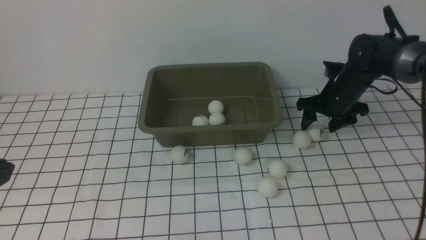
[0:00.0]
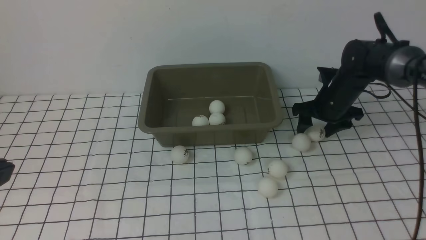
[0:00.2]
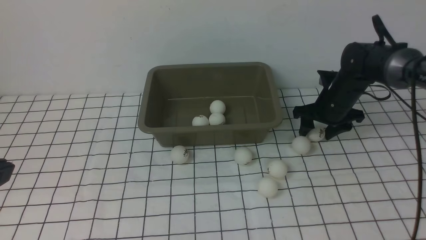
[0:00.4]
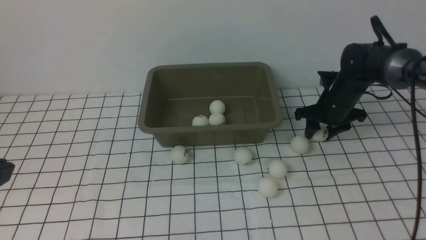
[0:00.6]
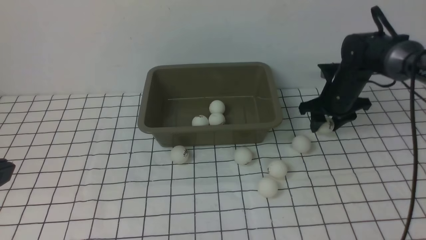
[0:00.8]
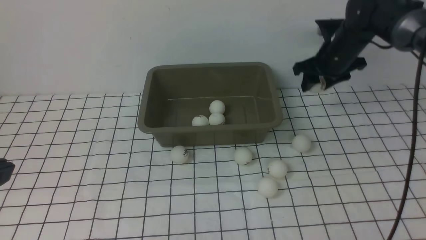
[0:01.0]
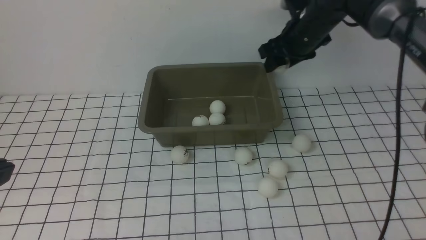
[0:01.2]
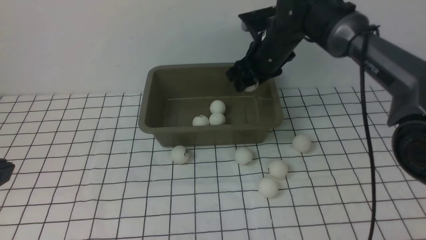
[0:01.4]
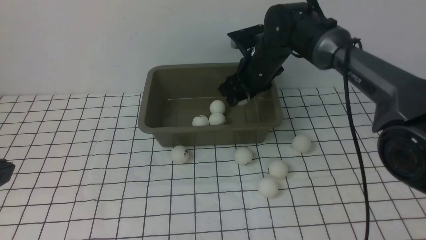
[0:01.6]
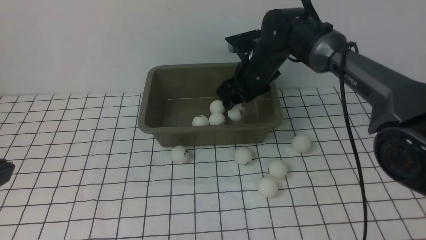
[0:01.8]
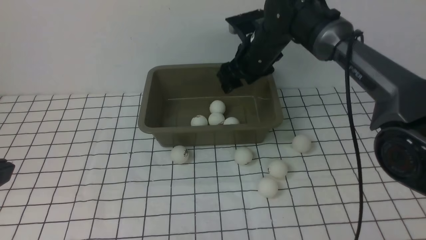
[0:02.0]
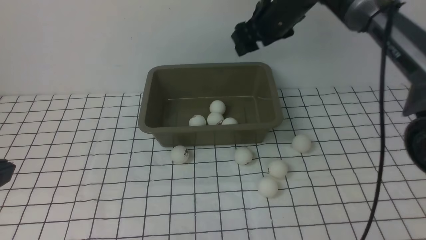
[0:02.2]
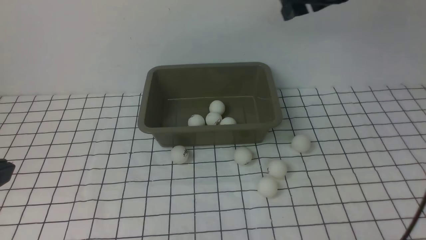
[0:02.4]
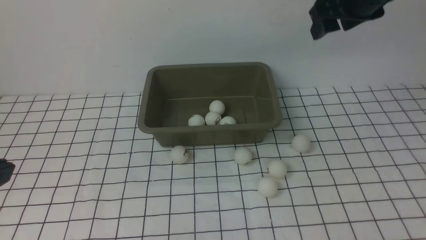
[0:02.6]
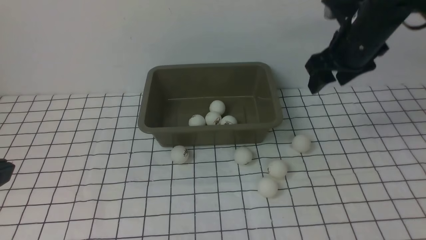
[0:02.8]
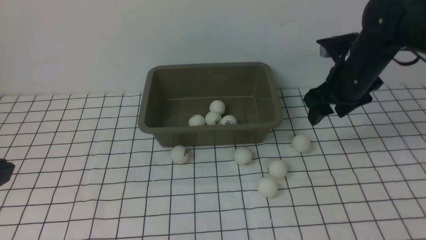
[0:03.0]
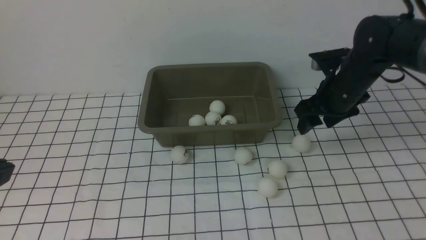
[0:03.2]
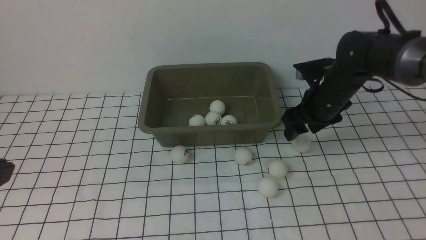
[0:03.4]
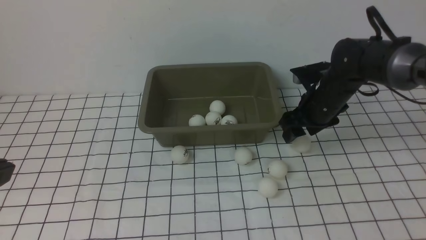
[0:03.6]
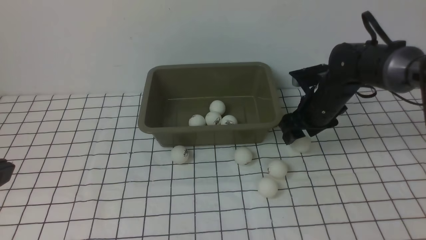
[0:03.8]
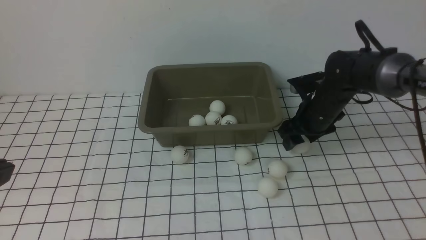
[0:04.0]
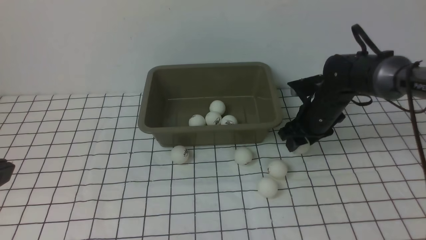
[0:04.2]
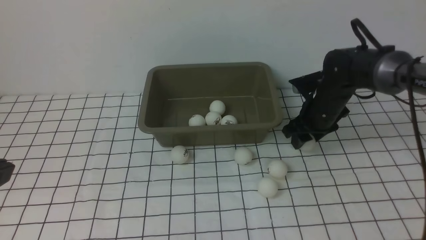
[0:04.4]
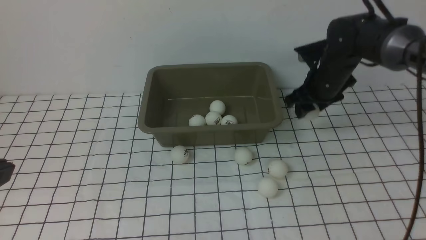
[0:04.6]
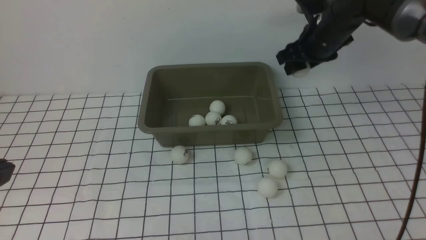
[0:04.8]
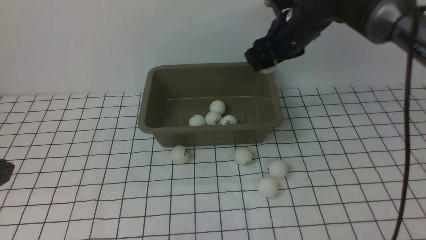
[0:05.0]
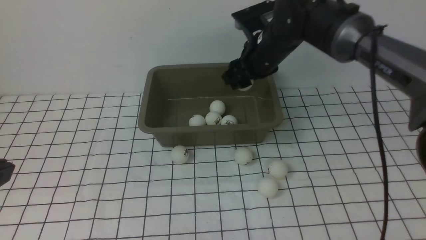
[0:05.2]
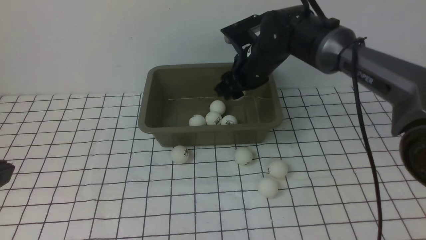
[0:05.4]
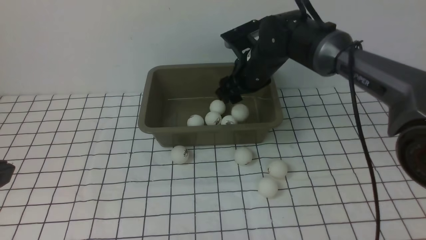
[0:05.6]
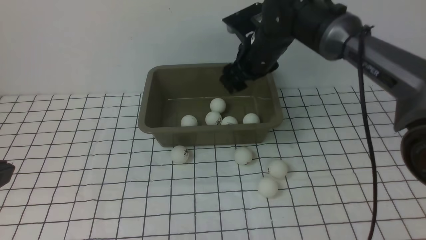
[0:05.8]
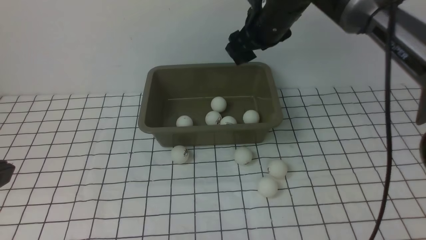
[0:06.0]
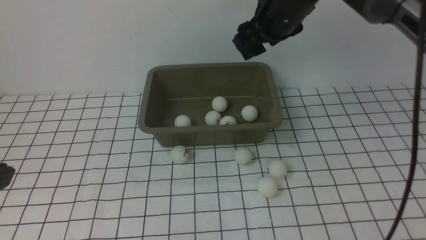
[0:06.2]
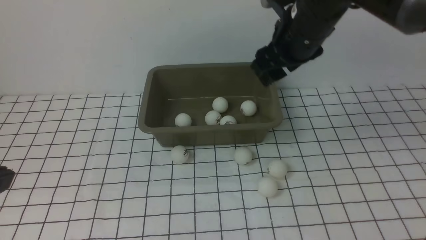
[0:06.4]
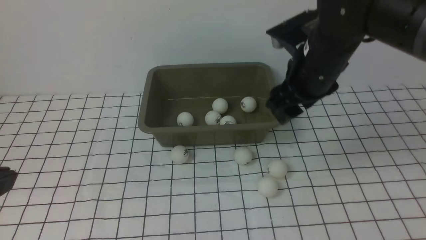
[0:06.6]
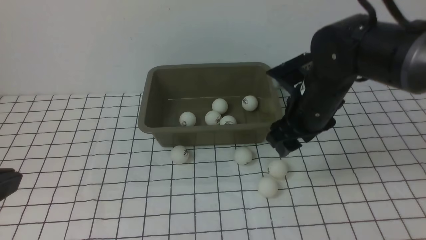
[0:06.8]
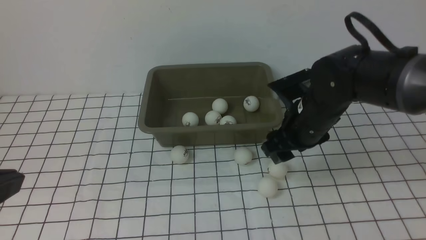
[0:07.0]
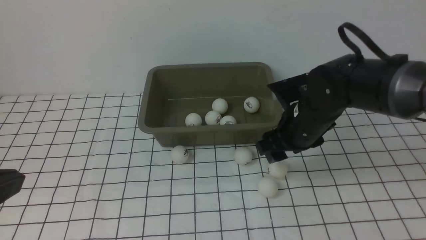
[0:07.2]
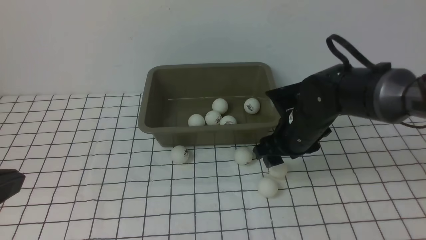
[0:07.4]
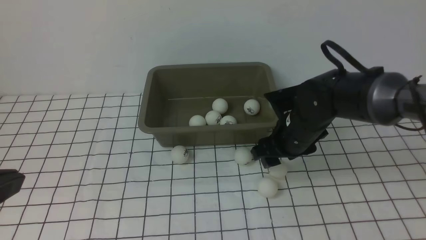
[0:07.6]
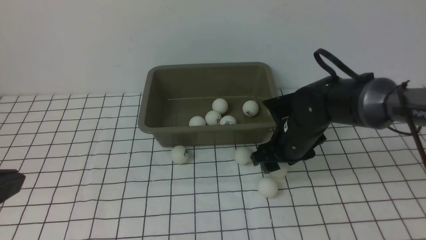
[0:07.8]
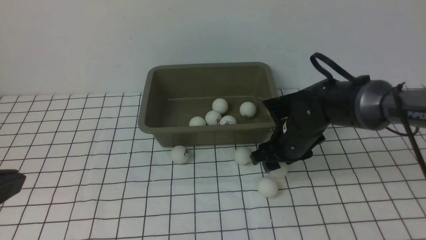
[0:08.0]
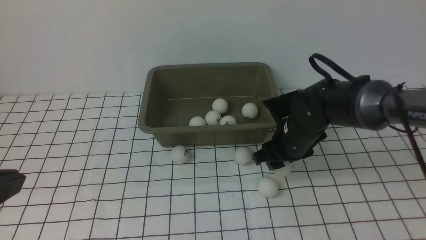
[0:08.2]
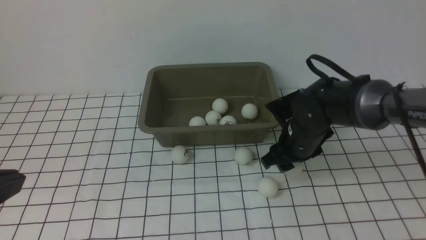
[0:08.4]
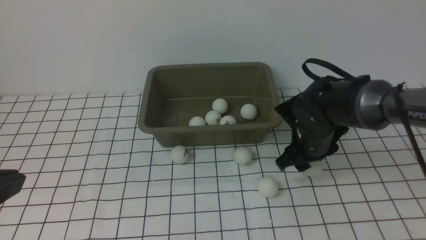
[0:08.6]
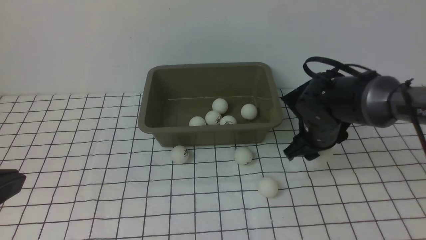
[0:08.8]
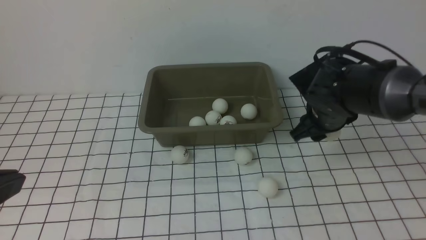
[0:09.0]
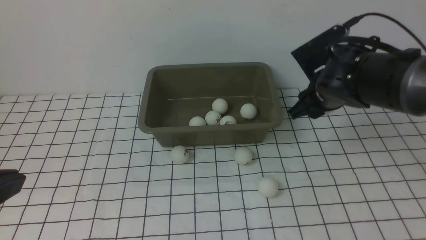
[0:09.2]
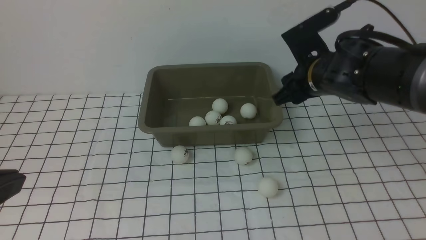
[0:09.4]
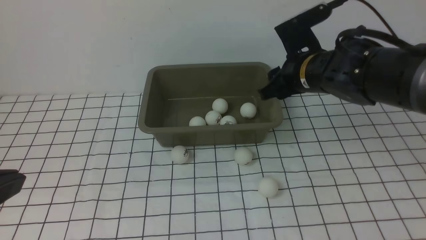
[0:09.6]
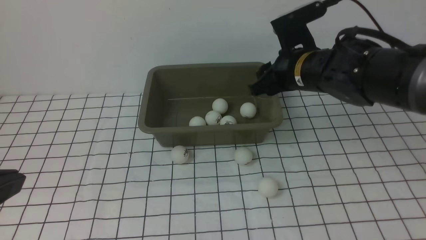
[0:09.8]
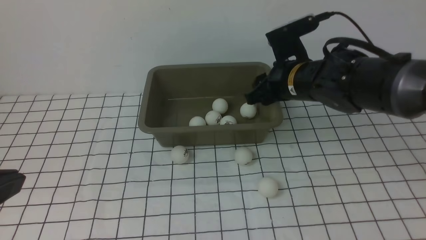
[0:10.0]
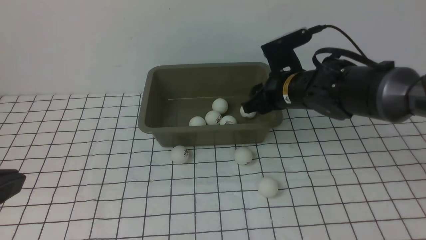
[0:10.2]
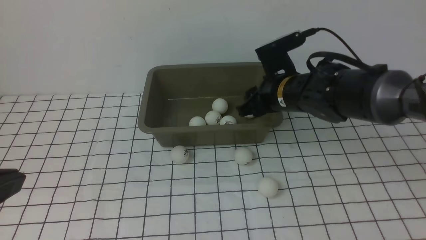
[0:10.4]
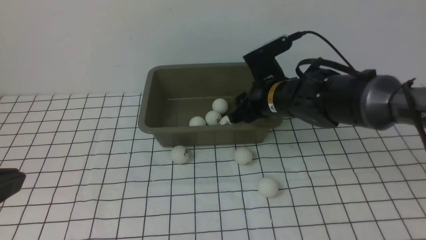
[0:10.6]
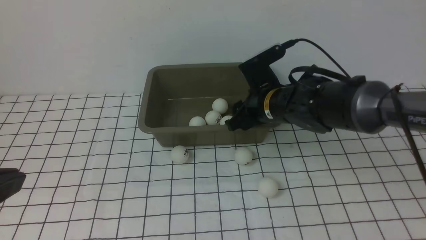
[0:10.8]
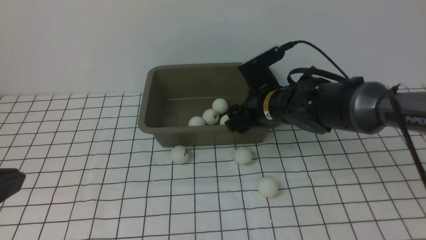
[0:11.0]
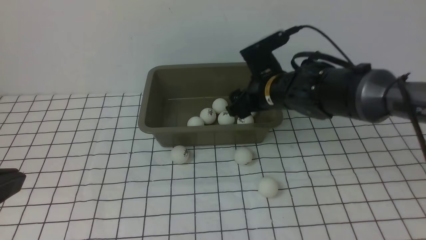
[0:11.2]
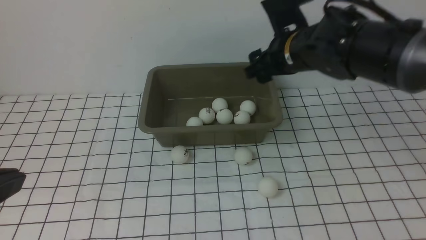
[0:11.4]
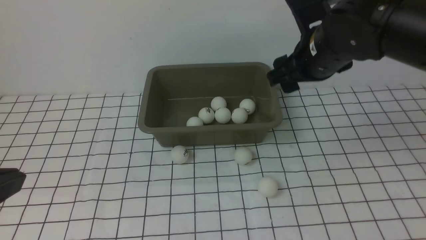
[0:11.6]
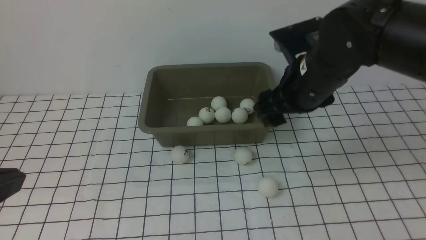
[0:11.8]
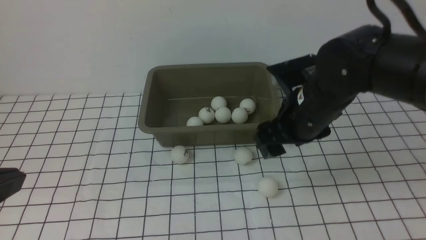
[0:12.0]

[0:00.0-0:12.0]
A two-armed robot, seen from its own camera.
Step, 0:01.2 to 0:02.0: use the right arm to put the table tennis ball into the box.
Step, 0:02.2 to 0:04.6: use the right arm to clamp the table tennis ball closest to it.
Step, 0:04.8 to 0:05.6: use the right arm to put the table tennis ball into the box.
Step, 0:06.0 to 0:08.6: use the right arm to clamp the table tennis ball closest to it.
Step, 0:08.8 to 0:11.2: use the right arm to put the table tennis ball into the box.
0:00.0 to 0:01.6: The right gripper moves to the left and upward, approximately 15 cm.
0:01.6 to 0:03.0: The right gripper moves to the right and backward, about 15 cm.
0:03.0 to 0:04.4: The right gripper moves downward, about 5 cm.
0:04.4 to 0:06.0: The right gripper is displaced upward and to the left by approximately 20 cm.
0:06.0 to 0:07.6: The right gripper is displaced downward and backward by some 15 cm.
0:07.6 to 0:09.0: The right gripper shifts by about 5 cm.
0:09.0 to 0:10.4: The right gripper moves to the left, some 5 cm.
0:10.4 to 0:12.0: The right gripper is displaced backward by approximately 10 cm, and reaches some 10 cm upward, then returns.

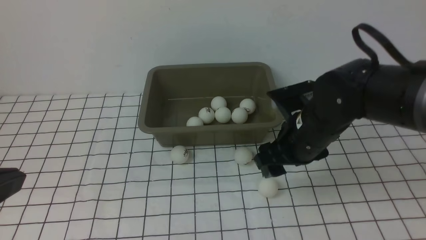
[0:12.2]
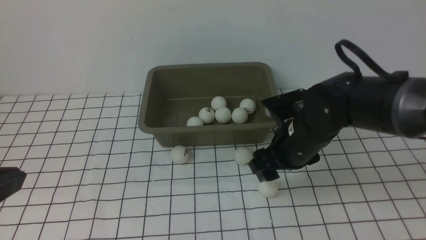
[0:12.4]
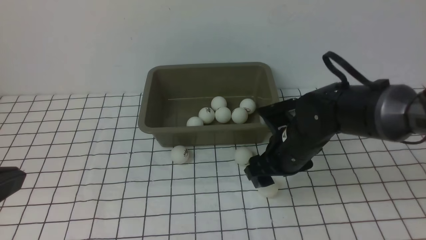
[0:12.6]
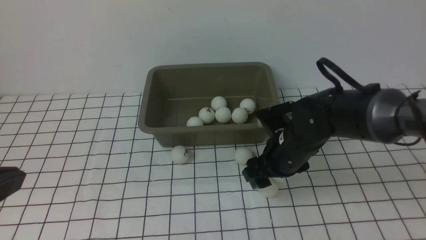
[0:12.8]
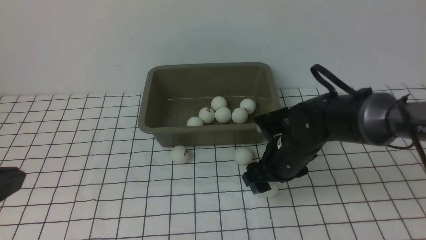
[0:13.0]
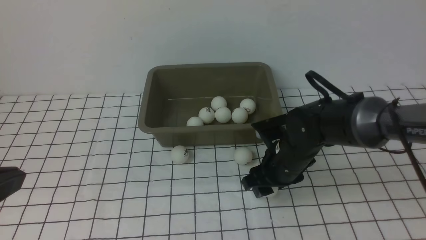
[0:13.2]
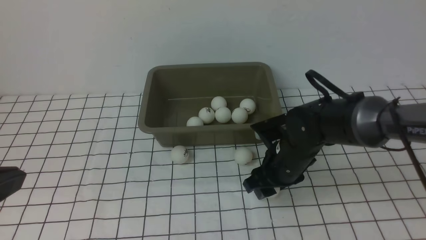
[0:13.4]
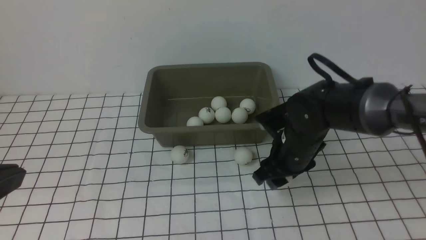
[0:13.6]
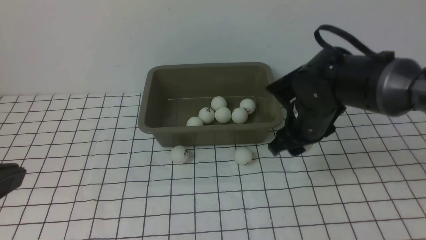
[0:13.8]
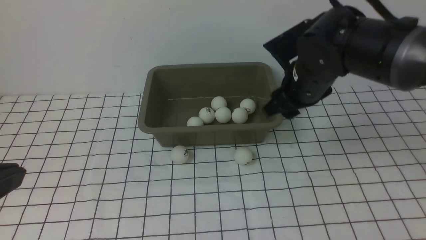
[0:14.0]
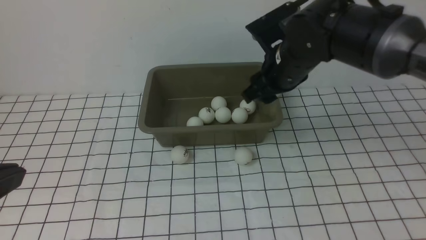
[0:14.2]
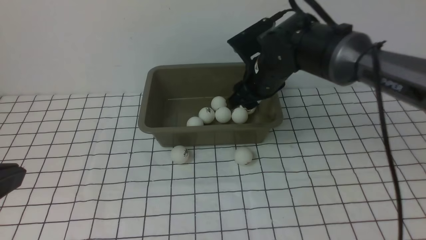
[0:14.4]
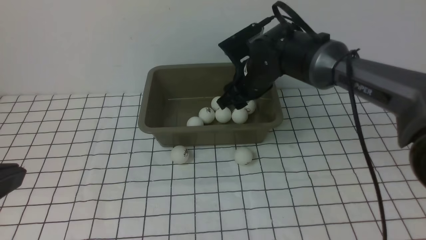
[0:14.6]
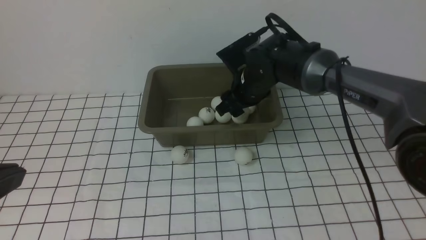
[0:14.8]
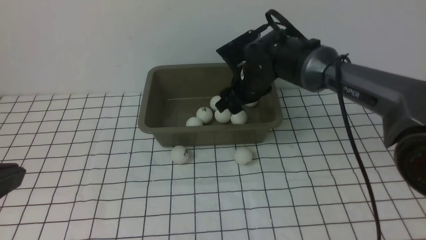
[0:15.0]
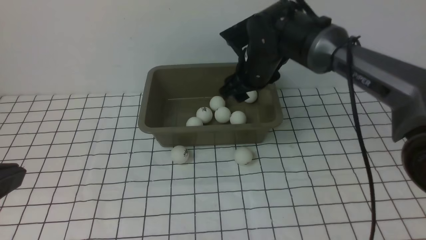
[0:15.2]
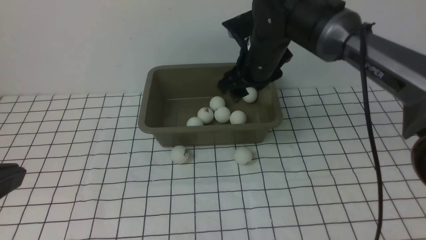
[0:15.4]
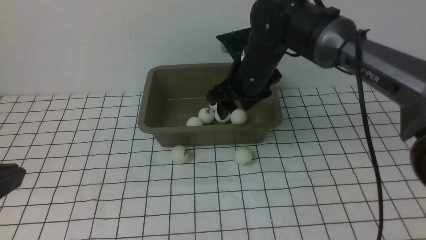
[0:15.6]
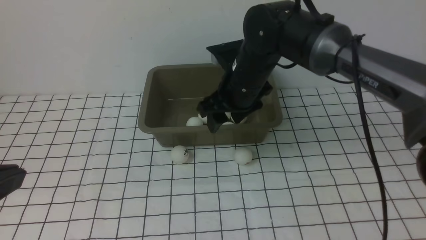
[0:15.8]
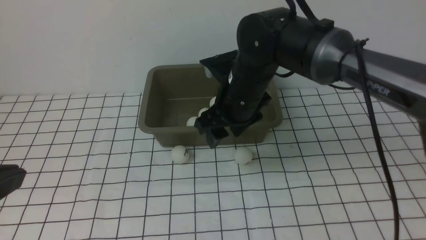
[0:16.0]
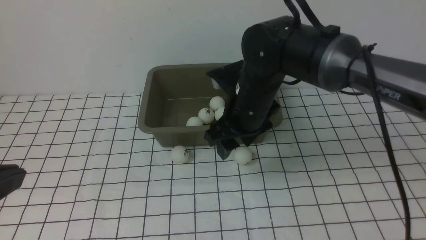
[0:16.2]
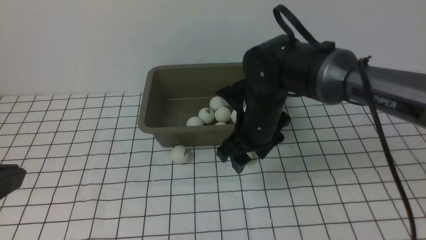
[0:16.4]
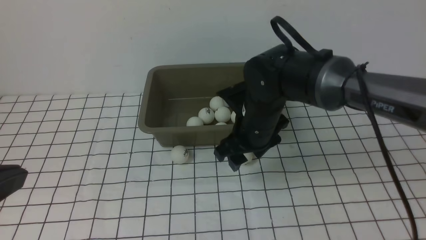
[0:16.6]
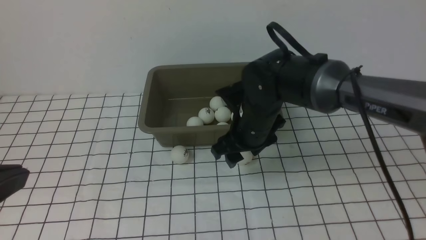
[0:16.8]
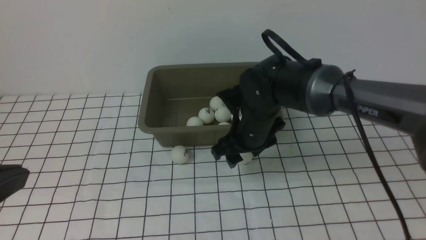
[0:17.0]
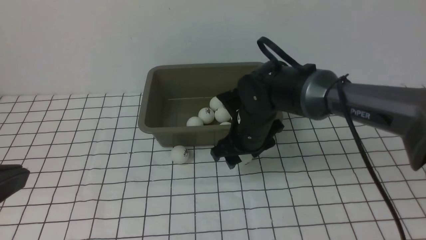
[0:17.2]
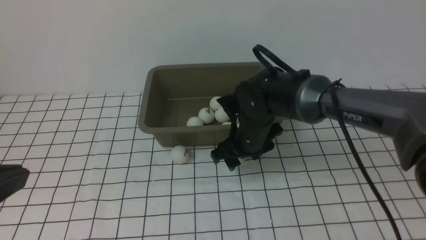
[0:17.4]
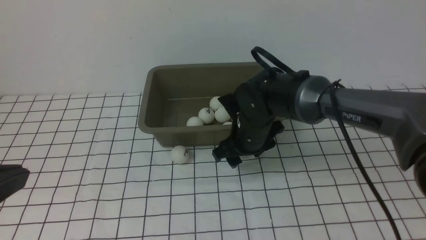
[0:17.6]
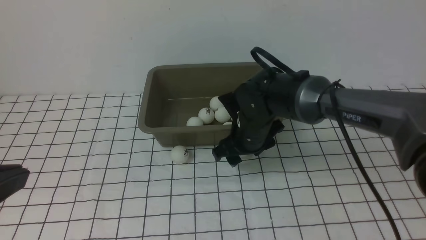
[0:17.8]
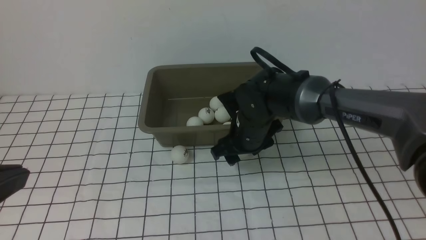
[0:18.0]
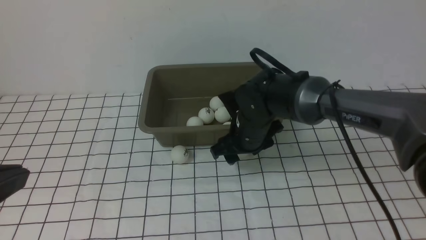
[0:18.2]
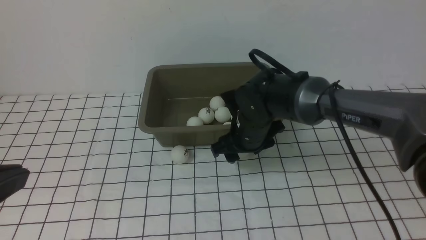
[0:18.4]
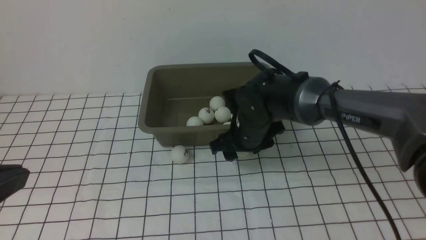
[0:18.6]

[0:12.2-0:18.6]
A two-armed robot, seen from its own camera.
Step, 0:12.2 to 0:13.6: use the right arm to clamp the table tennis ball closest to it.
Step, 0:13.8 to 0:15.0: use the right arm to put the table tennis ball into the box.
0:12.2 to 0:13.8: The right gripper reaches approximately 5 cm downward, then returns.
0:13.8 to 0:15.4: The right gripper moves forward and to the left, about 10 cm.
0:15.4 to 0:17.0: The right gripper shifts roughly 10 cm downward and backward.
0:17.0 to 0:18.6: The grippers make only small movements.
